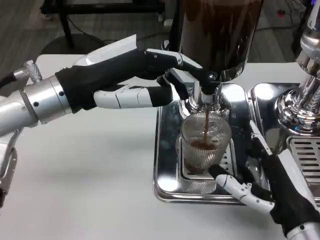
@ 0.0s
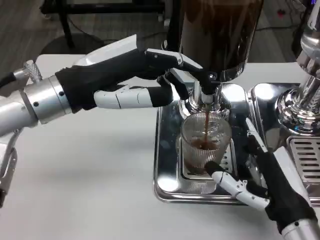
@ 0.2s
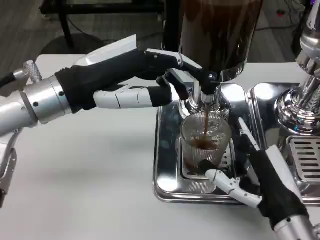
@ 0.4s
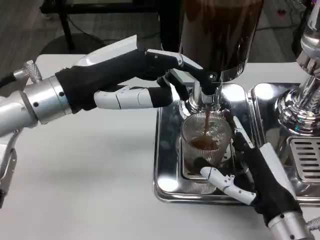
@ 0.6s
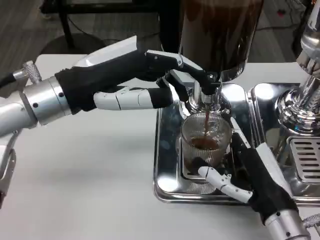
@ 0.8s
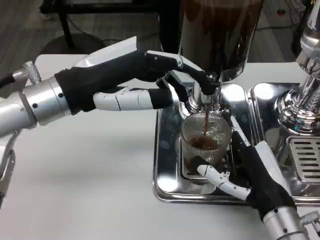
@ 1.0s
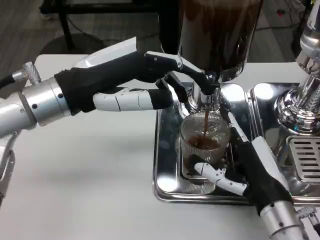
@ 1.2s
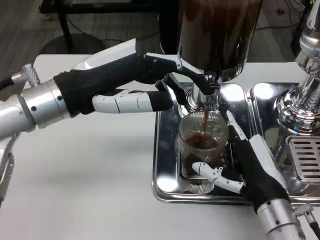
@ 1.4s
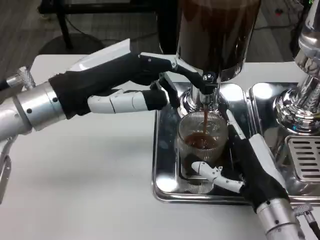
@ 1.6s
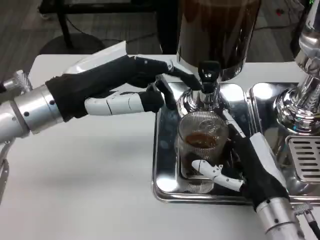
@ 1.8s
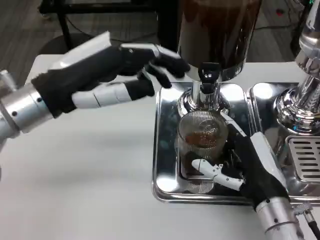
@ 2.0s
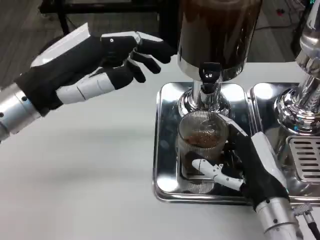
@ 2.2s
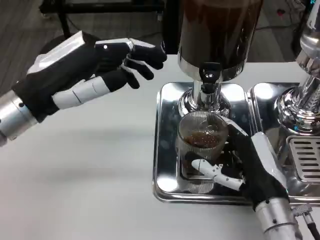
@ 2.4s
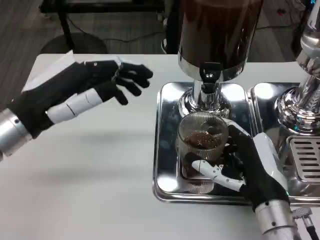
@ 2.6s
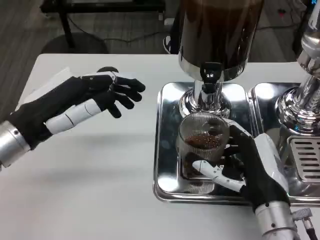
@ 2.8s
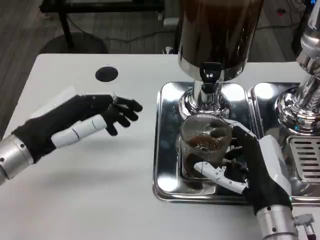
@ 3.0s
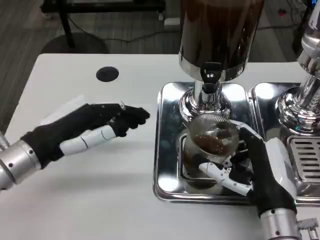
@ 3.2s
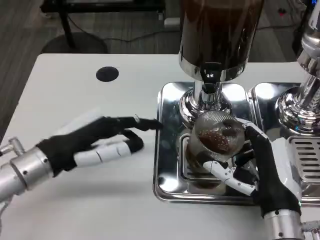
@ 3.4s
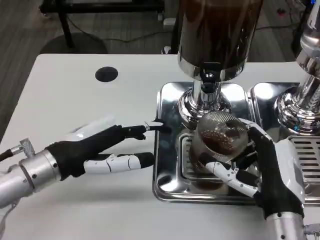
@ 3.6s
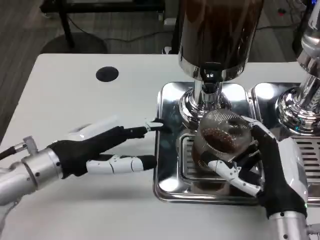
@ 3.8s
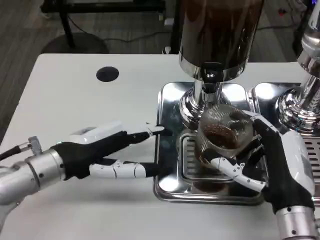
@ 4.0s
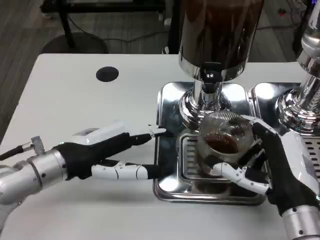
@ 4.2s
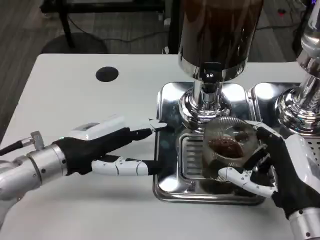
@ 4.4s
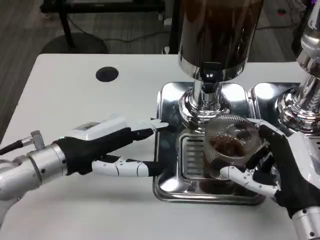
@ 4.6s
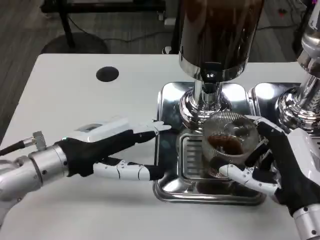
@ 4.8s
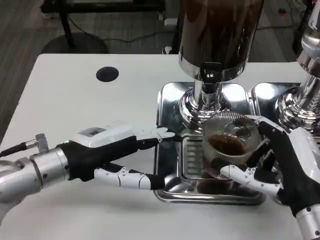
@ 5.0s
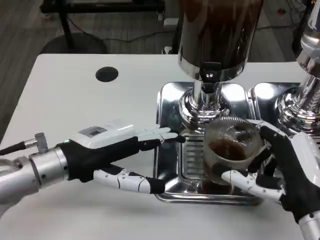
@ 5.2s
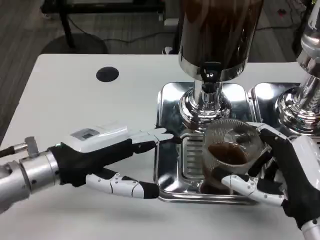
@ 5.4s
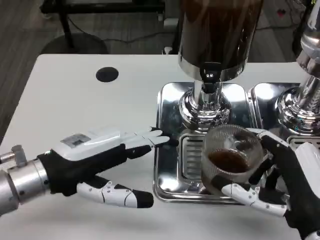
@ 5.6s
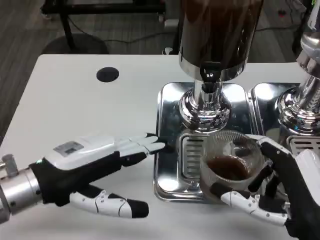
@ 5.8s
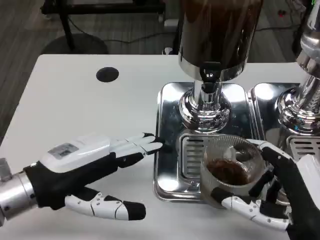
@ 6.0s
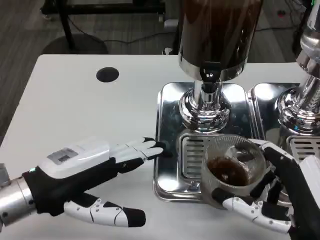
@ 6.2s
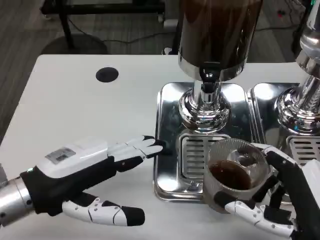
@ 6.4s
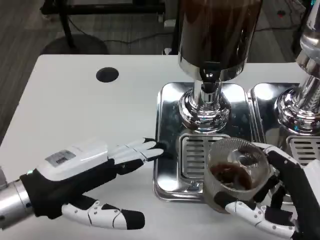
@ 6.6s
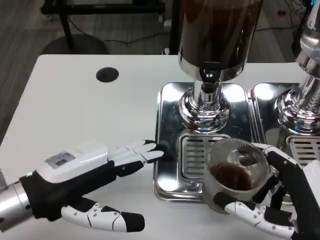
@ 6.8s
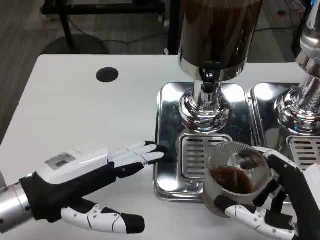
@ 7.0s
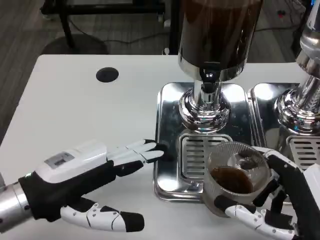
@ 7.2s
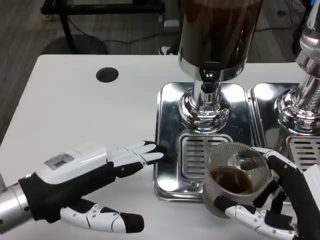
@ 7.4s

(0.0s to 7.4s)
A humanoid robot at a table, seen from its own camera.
Task of the whole recording: Grasp the cup under the faucet to collect the drink, then remove the cup.
0.0s - 1.4s: The right hand ends up approximately 5 cm from where it was.
1.4s - 3.0s: The left hand goes approximately 10 cm downward and to the left.
4.4s - 6.0s: The two hands go about 5 cm backward.
6.0s - 7.4s: The hands move only a little.

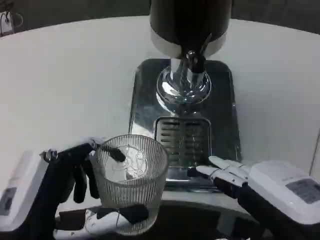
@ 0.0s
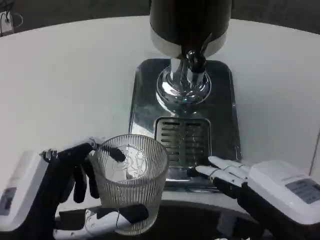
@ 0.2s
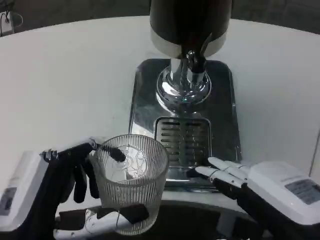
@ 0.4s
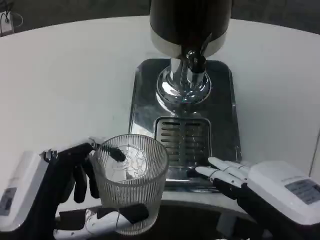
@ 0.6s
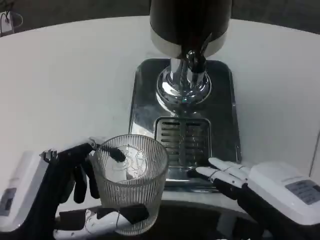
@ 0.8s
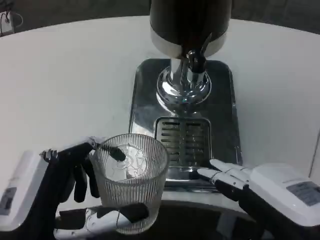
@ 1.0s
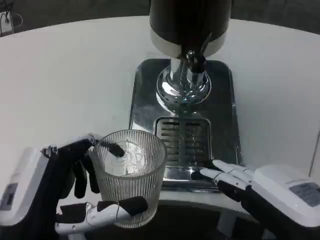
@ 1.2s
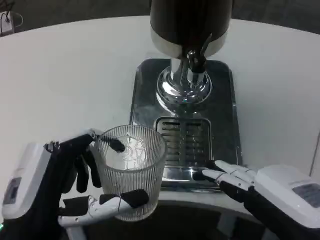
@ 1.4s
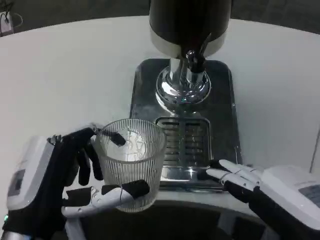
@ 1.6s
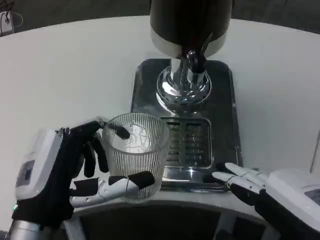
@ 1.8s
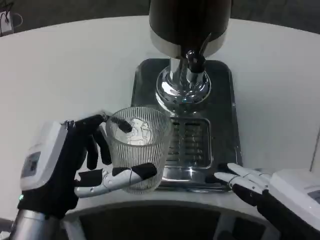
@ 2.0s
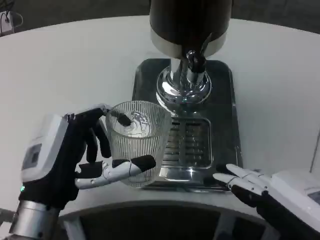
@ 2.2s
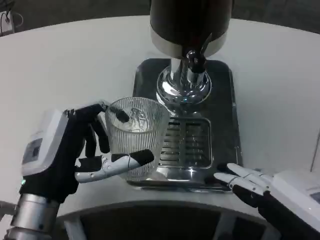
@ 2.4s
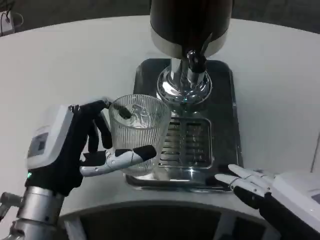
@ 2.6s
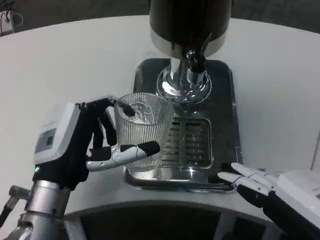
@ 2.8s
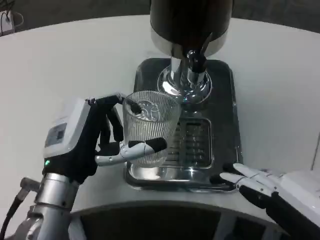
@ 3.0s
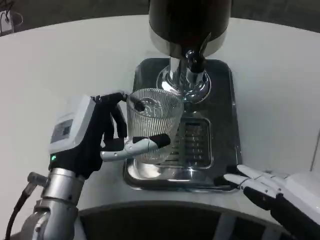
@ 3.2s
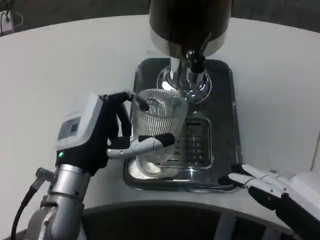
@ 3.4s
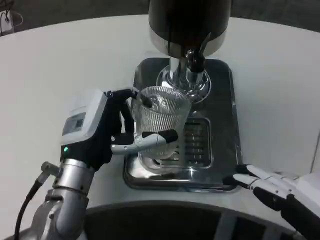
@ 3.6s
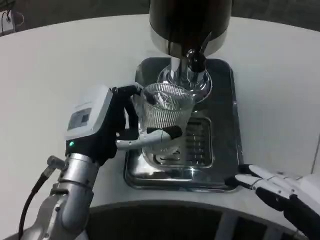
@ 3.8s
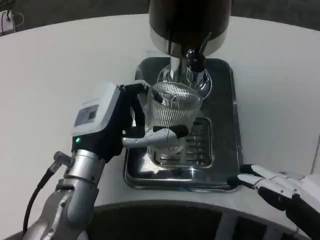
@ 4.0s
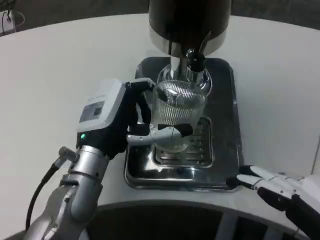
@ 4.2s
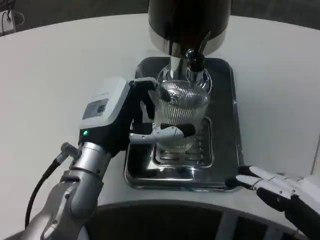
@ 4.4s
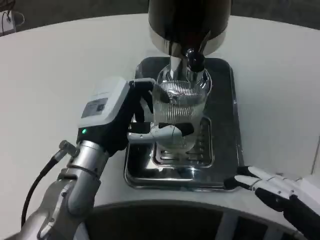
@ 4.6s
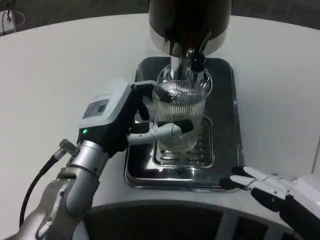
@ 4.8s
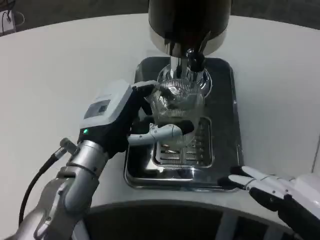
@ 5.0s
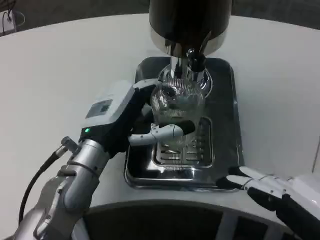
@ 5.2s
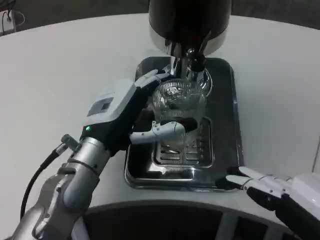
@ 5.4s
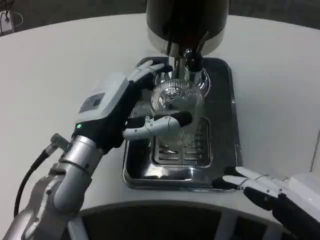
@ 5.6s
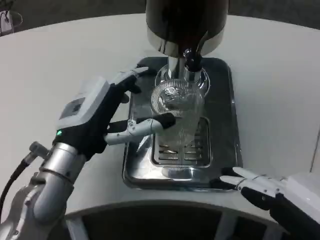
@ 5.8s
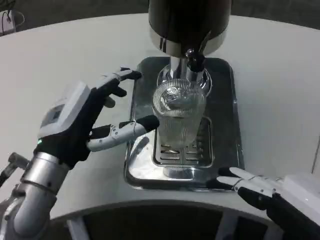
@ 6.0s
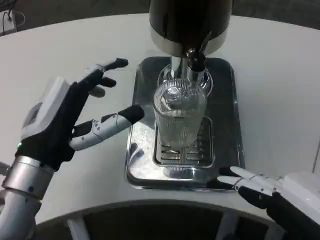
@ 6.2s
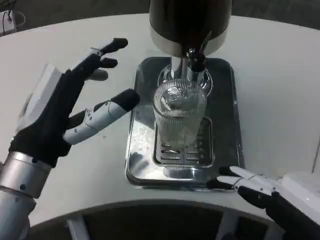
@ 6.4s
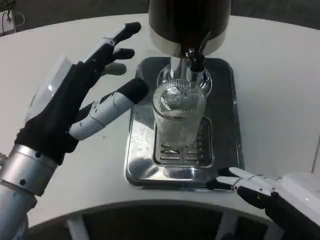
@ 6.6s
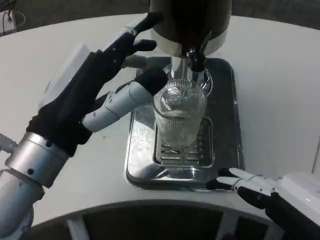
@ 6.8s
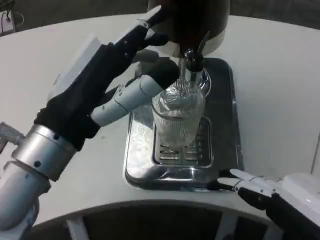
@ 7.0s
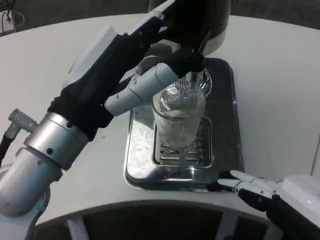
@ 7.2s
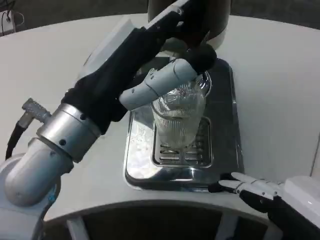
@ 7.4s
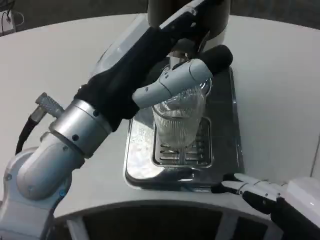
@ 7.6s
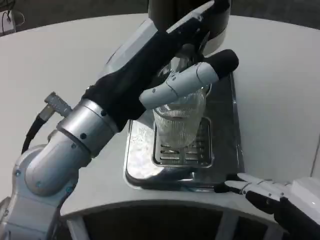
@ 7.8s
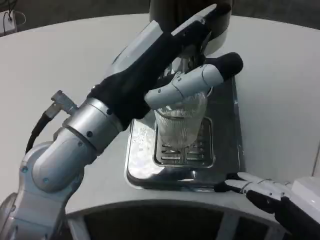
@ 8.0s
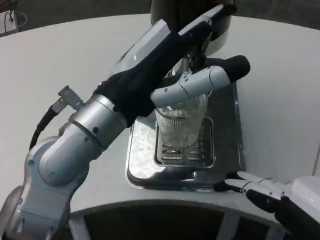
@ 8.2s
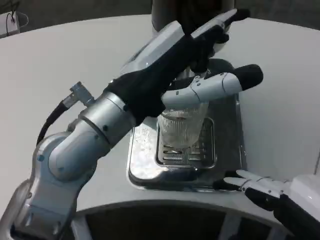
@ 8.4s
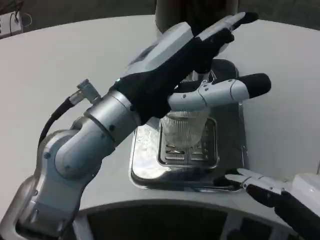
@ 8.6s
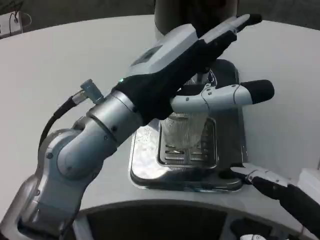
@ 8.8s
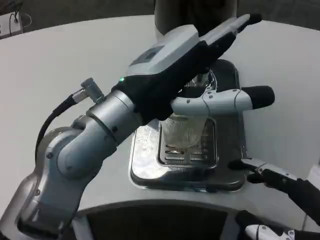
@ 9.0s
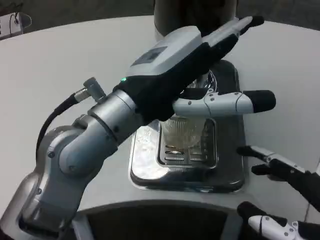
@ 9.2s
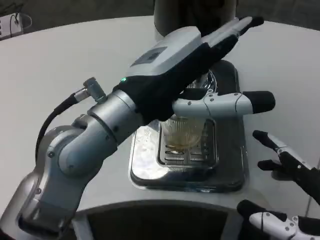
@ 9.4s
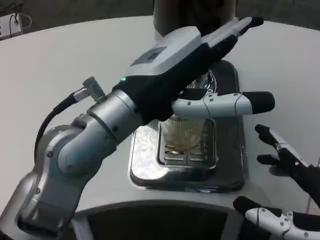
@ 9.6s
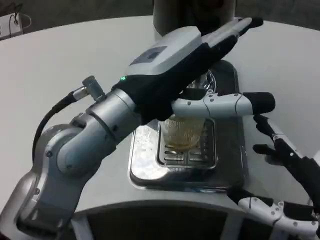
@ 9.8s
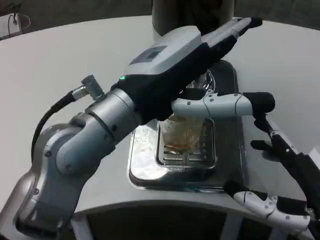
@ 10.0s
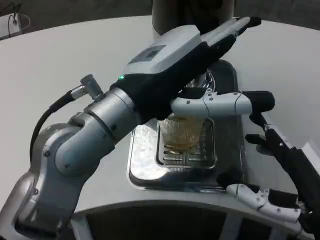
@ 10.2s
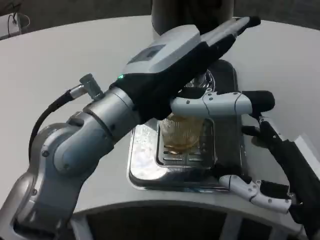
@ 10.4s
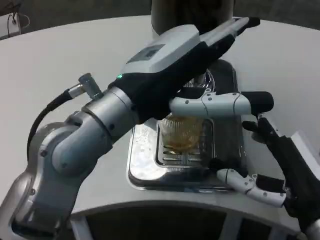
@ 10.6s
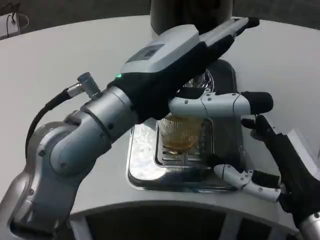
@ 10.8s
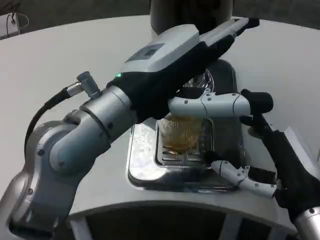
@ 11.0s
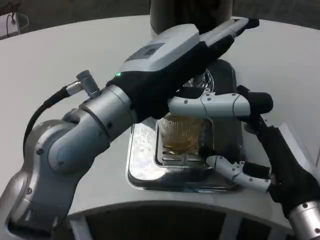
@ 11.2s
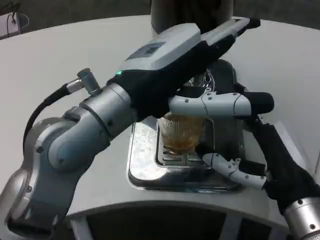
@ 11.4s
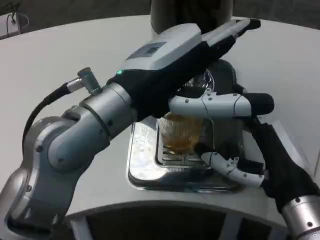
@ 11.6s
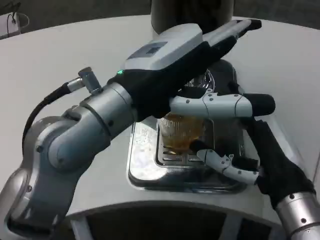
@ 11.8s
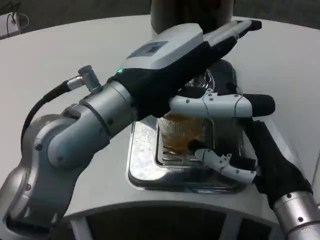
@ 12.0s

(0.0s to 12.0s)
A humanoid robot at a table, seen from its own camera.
Task of the whole recording: Grasp the cup under the faucet to collect the drink, then remove the cup.
0.0s - 1.6s: There are only small adjustments of the hands.
1.6s - 3.0s: The left hand heads forward, covering roughly 10 cm.
3.0s - 4.4s: The left hand ends up roughly 5 cm from where it was.
4.4s - 6.0s: The left hand goes about 5 cm to the left.
6.0s - 7.6s: The left hand moves upward and to the right, roughly 10 cm.
9.0s - 10.4s: The right hand travels forward by about 5 cm.
10.4s - 12.0s: The right hand changes place by about 5 cm.

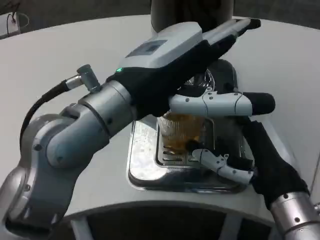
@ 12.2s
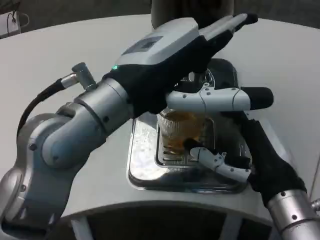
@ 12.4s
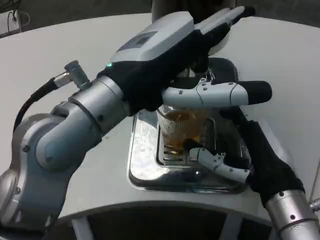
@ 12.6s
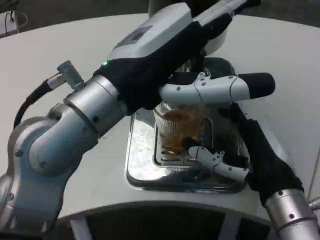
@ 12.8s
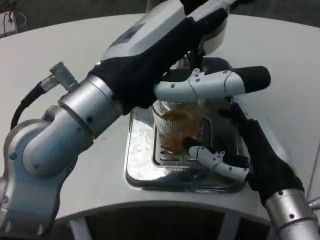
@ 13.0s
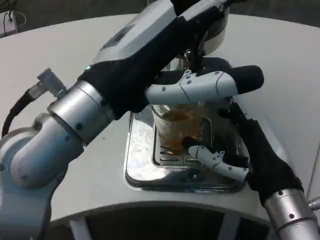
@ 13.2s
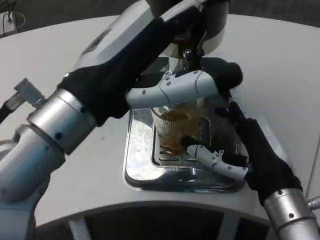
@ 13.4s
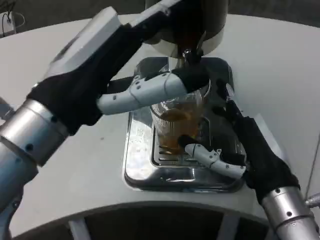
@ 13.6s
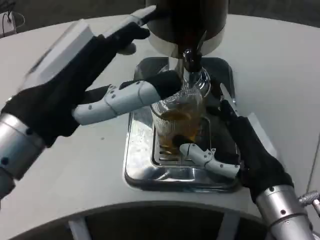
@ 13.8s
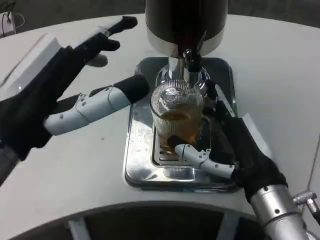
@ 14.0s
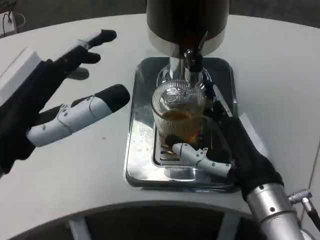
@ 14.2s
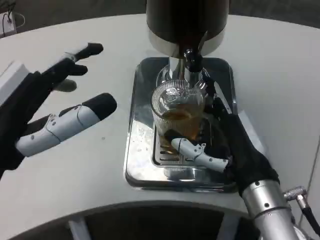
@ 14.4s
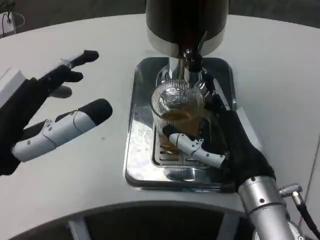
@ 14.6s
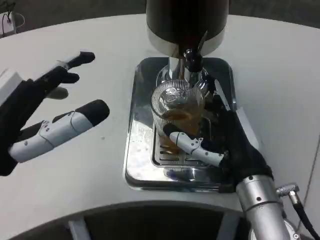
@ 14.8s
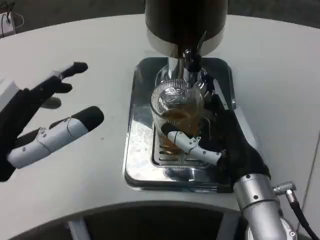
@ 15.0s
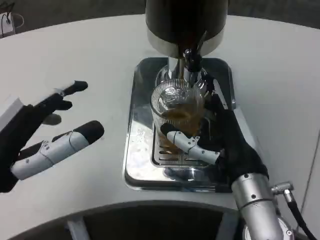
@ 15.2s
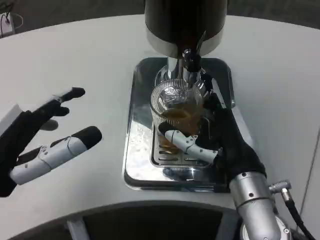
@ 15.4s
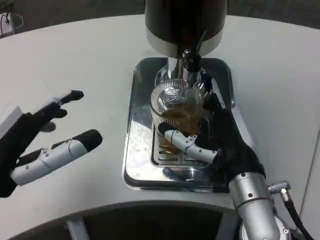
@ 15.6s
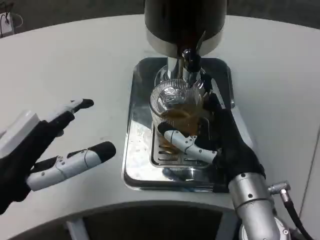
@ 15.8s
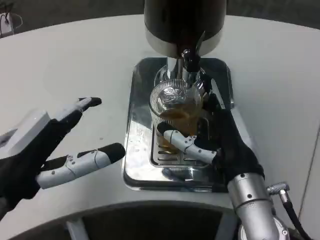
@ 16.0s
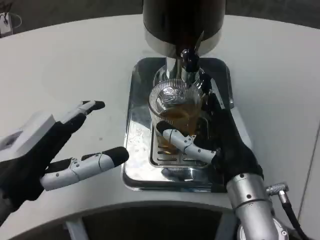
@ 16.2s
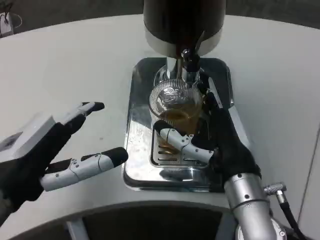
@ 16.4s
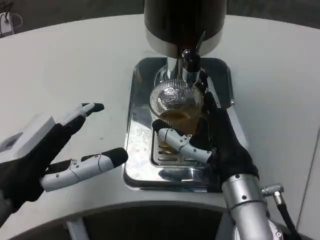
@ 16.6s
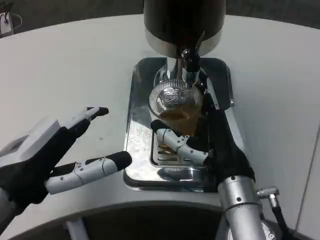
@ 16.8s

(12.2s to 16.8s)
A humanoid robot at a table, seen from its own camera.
Task of the whole recording: Grasp the cup under the faucet to collect the drink, then remove the cup.
12.2s - 13.8s: The left hand heads to the left and backward, covering approximately 10 cm.
13.8s - 15.2s: The left hand ends up roughly 5 cm from where it was.
